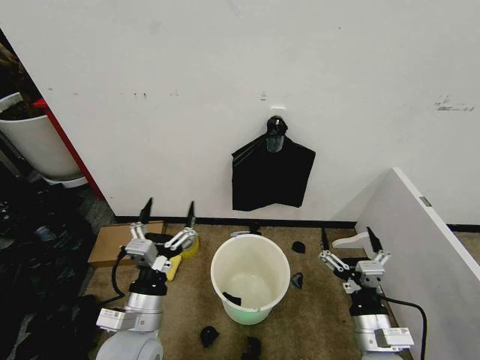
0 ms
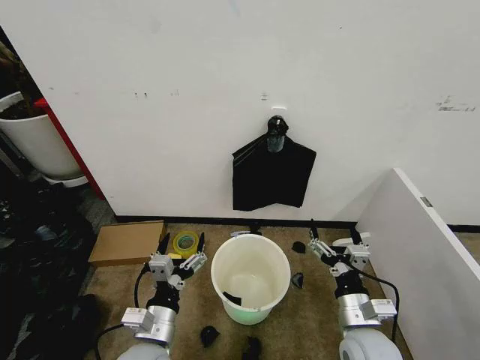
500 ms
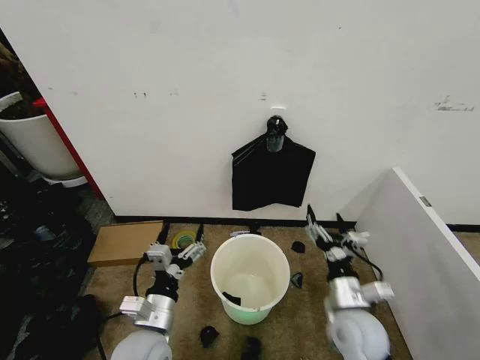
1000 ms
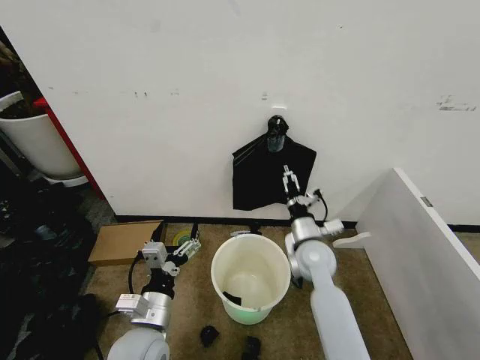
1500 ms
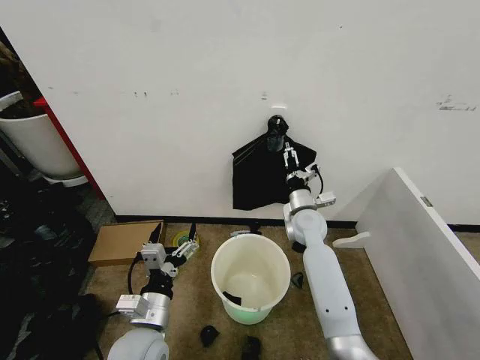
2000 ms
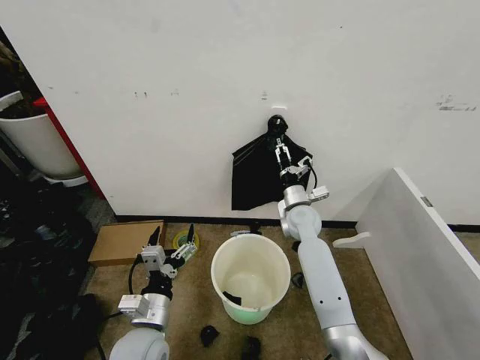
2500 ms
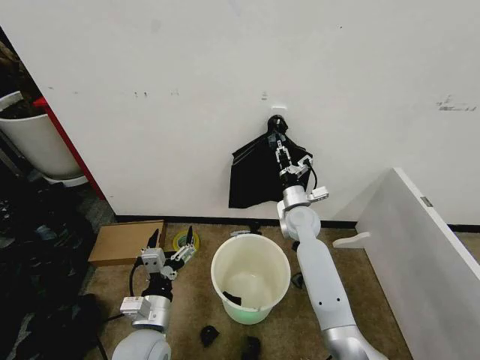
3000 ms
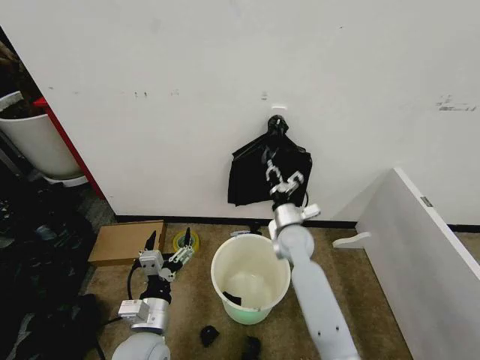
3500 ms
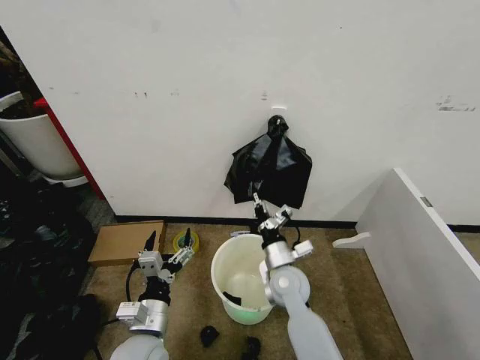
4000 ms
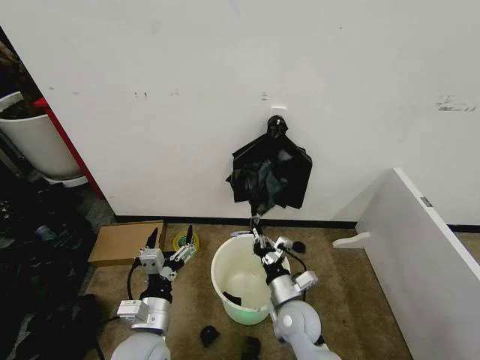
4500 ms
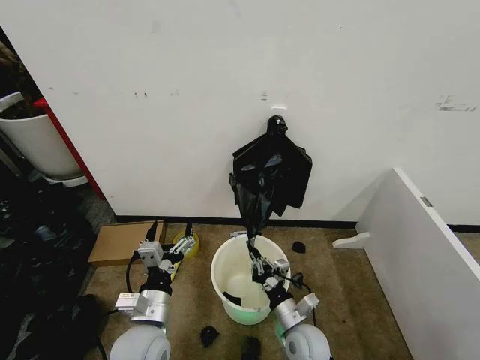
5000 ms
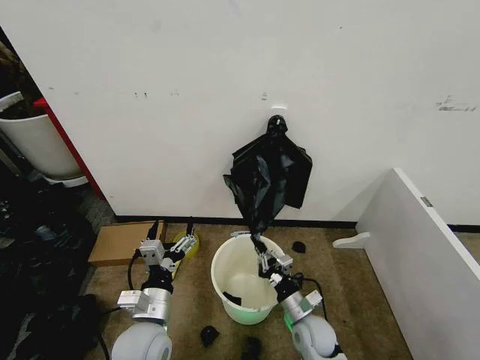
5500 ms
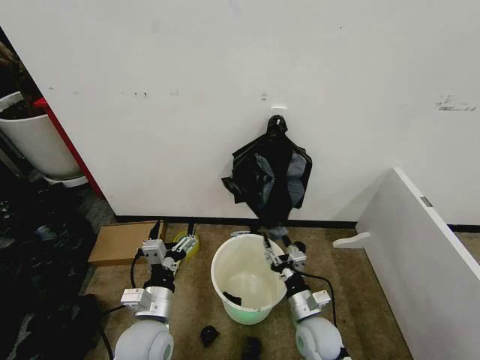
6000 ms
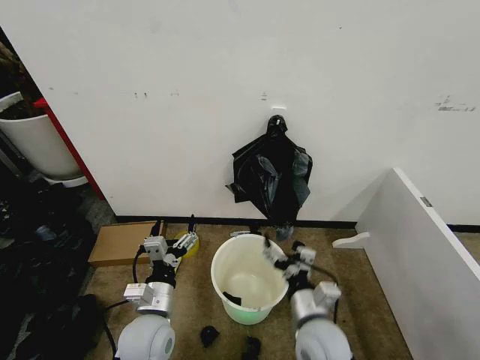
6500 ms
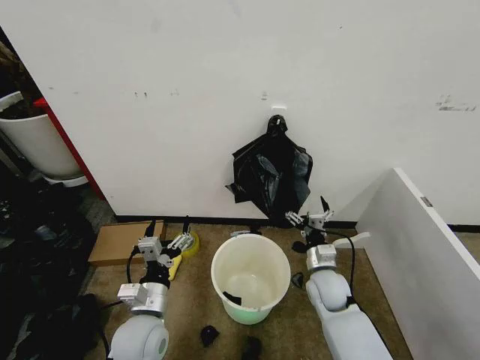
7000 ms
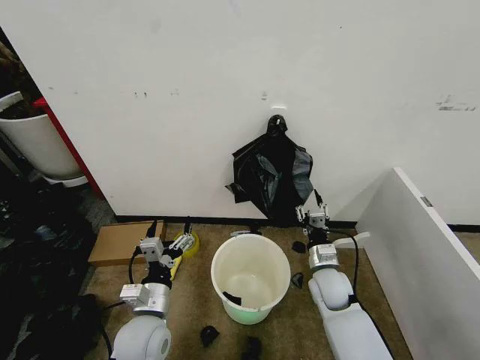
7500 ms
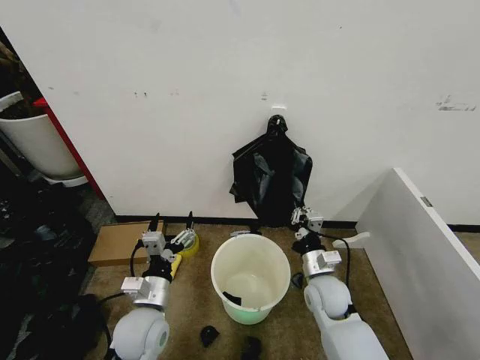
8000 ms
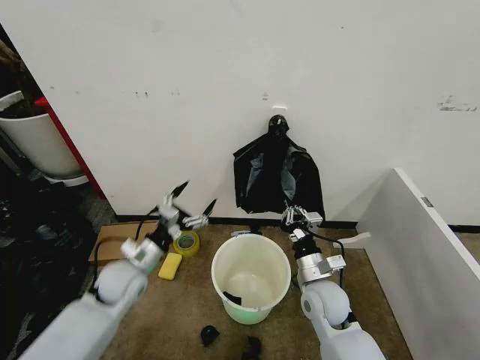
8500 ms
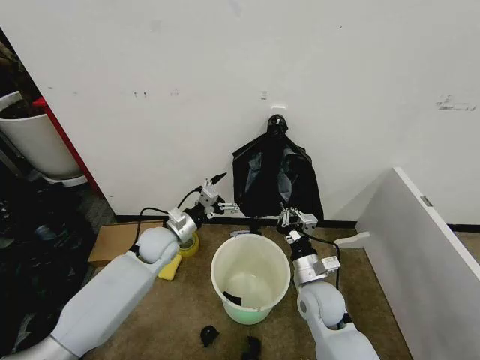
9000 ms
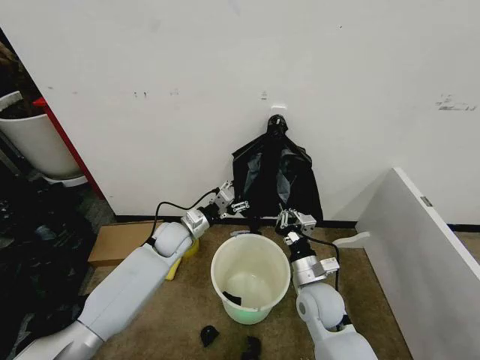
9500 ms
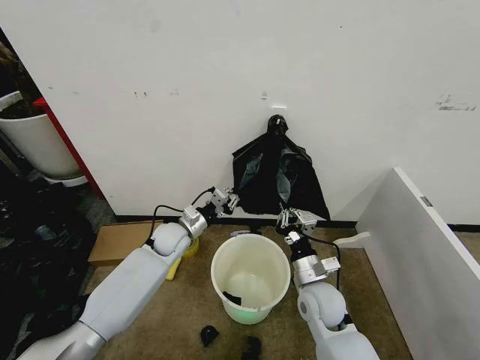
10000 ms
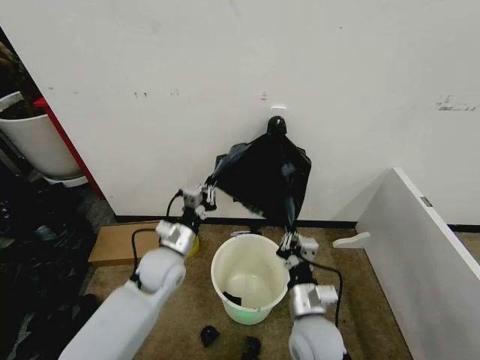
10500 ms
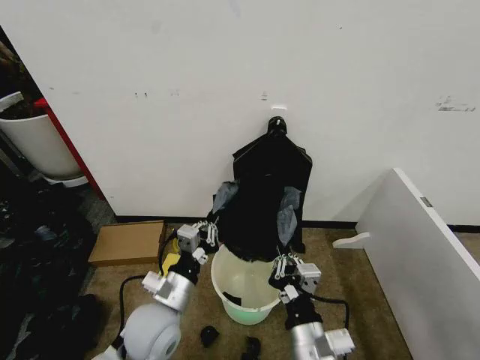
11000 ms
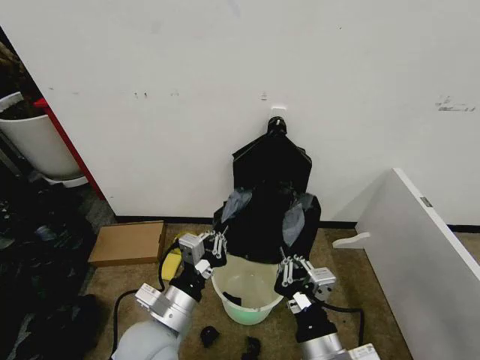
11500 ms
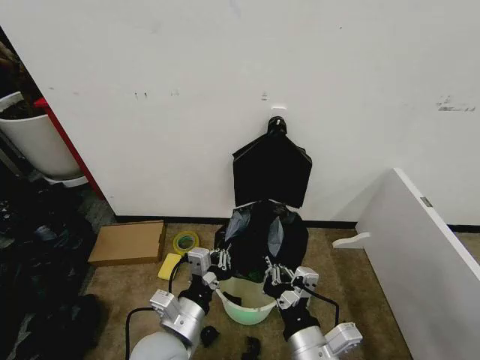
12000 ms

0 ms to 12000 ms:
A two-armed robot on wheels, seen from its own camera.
Task of the whole recording: Place the garbage bag over the trash bin.
2000 ms to 4000 ms: The right gripper goes approximately 15 cm backward, to the left and downward, and closes up.
4000 ms to 6000 ms: The right gripper is displaced backward, downward and to the right by about 15 cm, and opens.
6000 ms to 8000 ms: The right gripper goes roughly 10 cm forward and upward, and closes.
8000 ms to 10000 ms: The left gripper travels forward by approximately 25 cm, and closes up.
10000 ms to 12000 ms: The left gripper shifts approximately 30 cm backward. Meanwhile the right gripper heads backward and upward, covering some 20 cm.

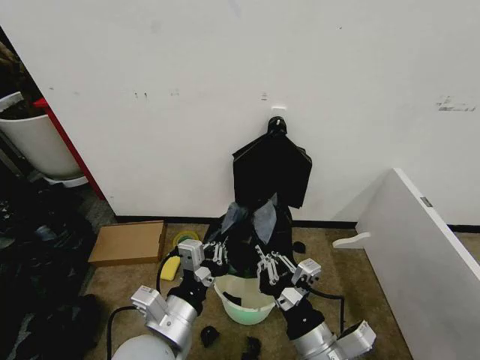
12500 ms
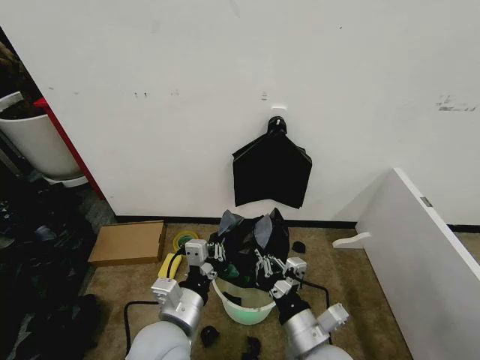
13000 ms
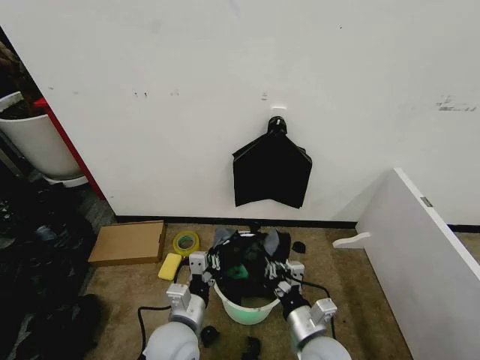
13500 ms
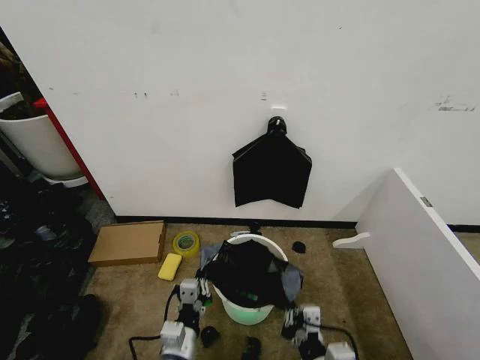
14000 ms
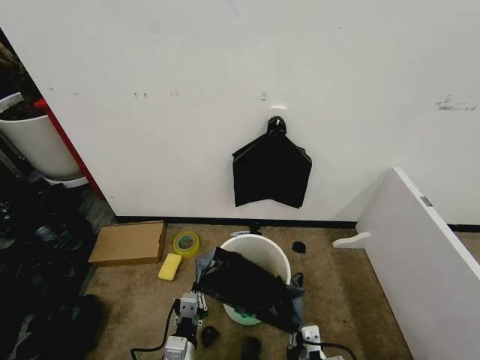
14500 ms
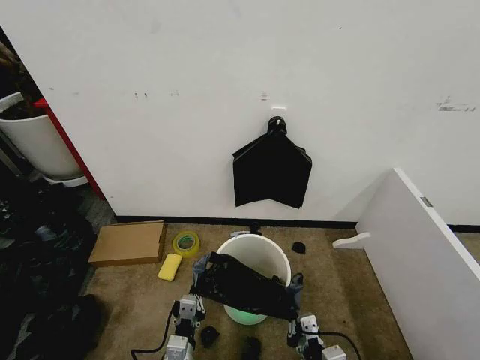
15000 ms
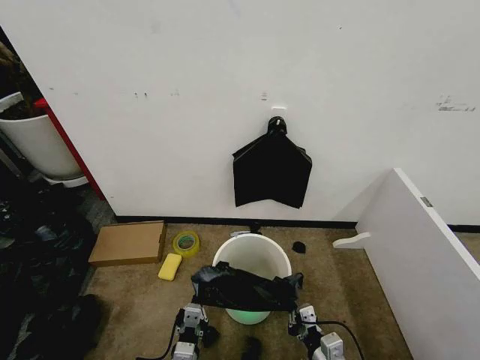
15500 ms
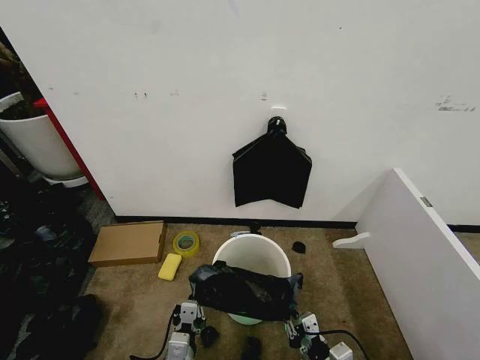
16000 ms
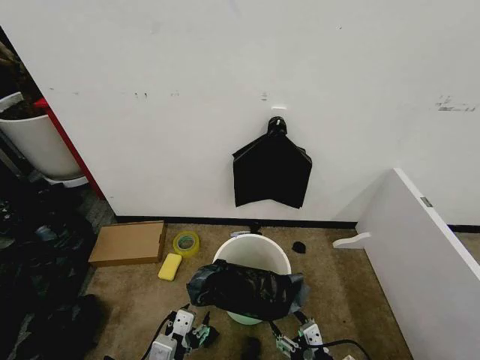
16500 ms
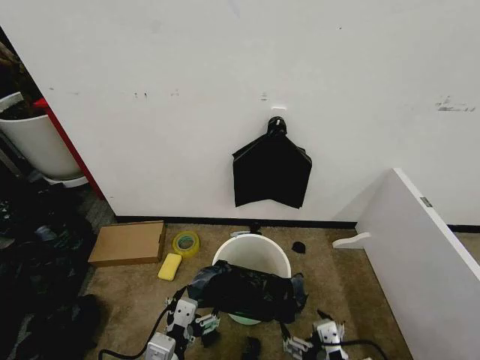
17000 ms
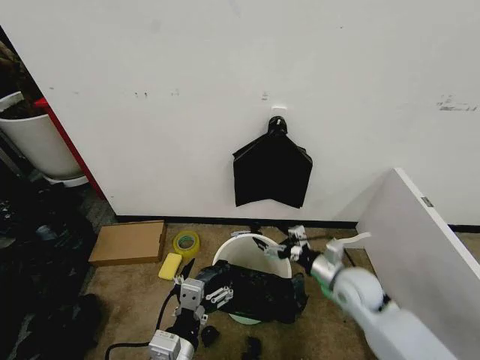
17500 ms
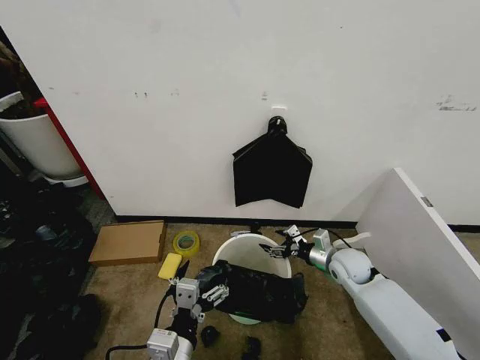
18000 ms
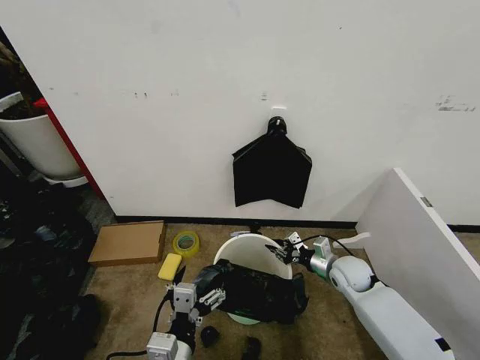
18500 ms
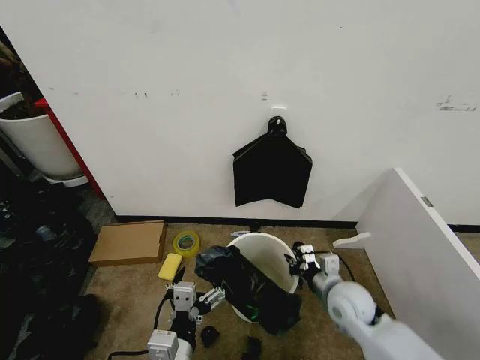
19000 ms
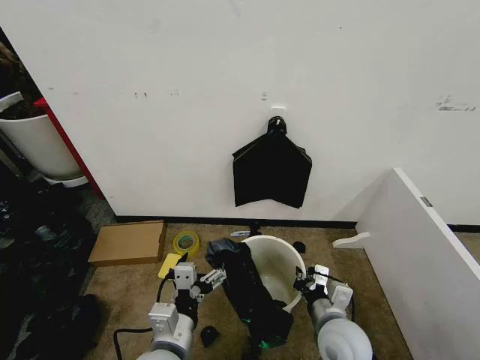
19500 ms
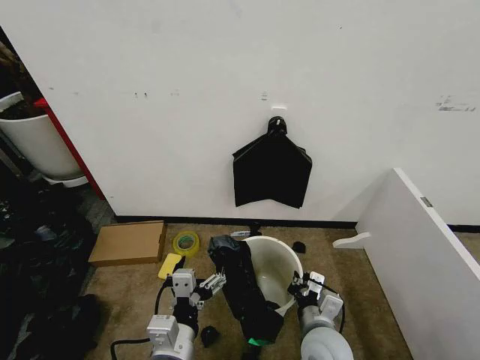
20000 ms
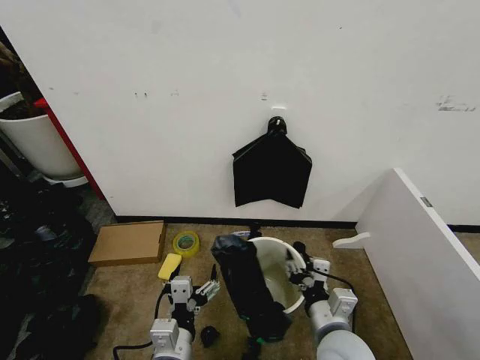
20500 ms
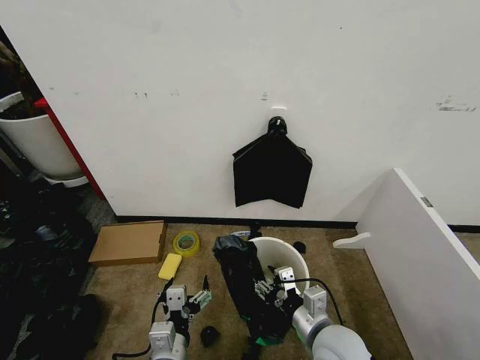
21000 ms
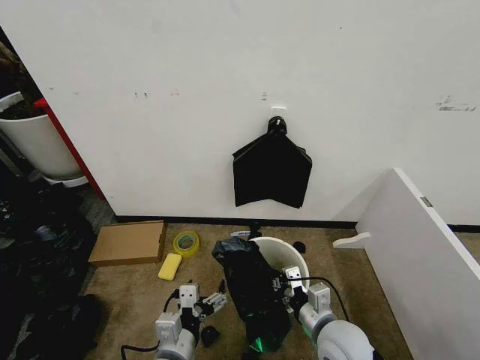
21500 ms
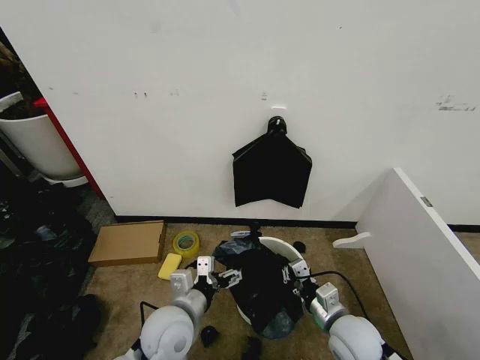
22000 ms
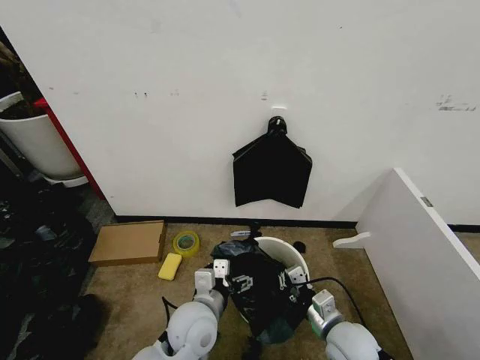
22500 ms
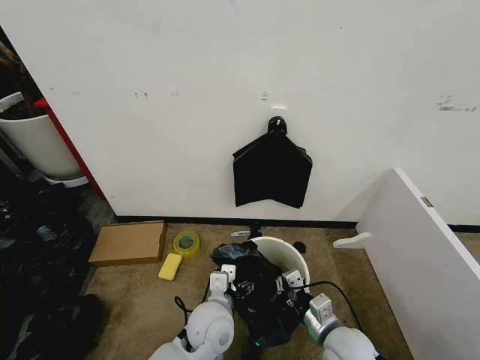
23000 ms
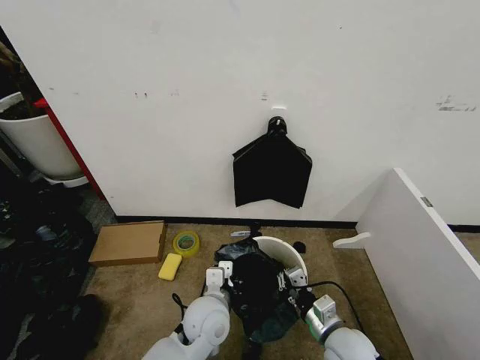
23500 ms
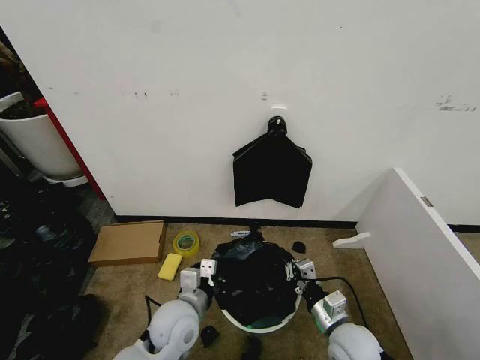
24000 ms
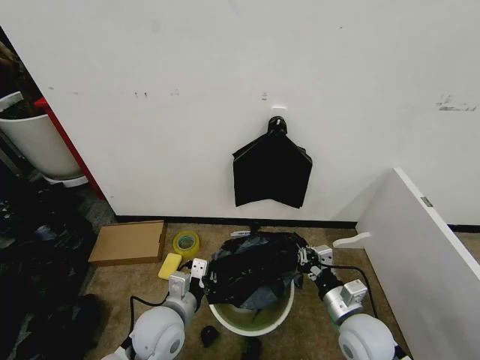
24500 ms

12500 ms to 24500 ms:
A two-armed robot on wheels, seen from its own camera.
Task of the whole recording: Place the garbage bag over the trash bin.
12500 ms to 14500 ms: The right gripper is displaced downward and backward by some 10 cm. Meanwhile the left gripper is displaced downward by some 20 cm.
14500 ms to 16500 ms: The right gripper heads to the right, covering approximately 5 cm, and opens. The left gripper heads upward, covering about 10 cm, and opens.
16500 ms to 18500 ms: The right gripper moves forward, roughly 30 cm, and closes its fingers. Meanwhile the left gripper is displaced upward by roughly 5 cm, and opens up.
18500 ms to 20500 ms: The right gripper is displaced backward, to the left and upward by roughly 25 cm.
20500 ms to 22500 ms: The left gripper is displaced forward by some 10 cm. Meanwhile the right gripper goes some 5 cm downward, and closes up.
22500 ms to 24500 ms: The left gripper moves to the left, about 5 cm, and closes its fingers.

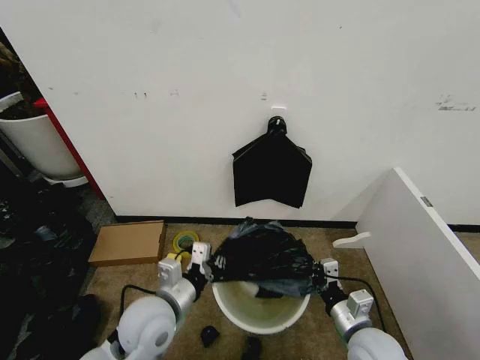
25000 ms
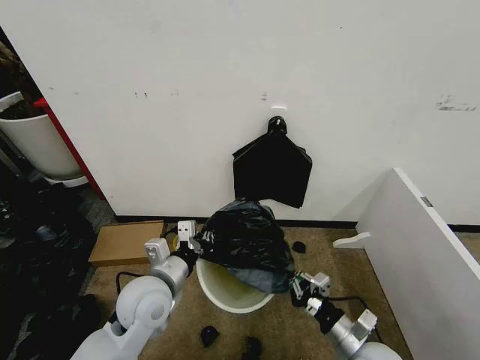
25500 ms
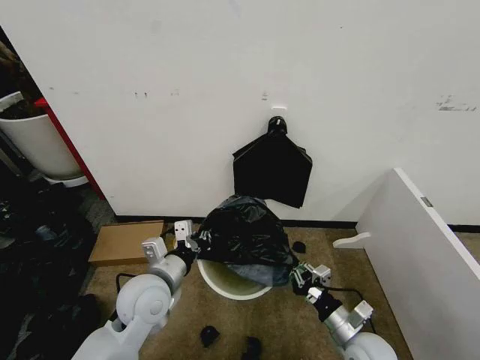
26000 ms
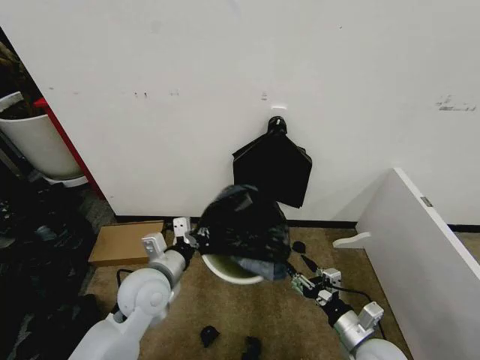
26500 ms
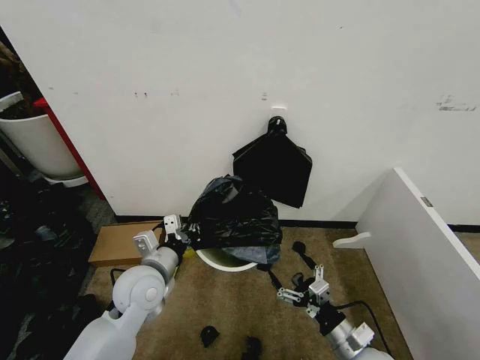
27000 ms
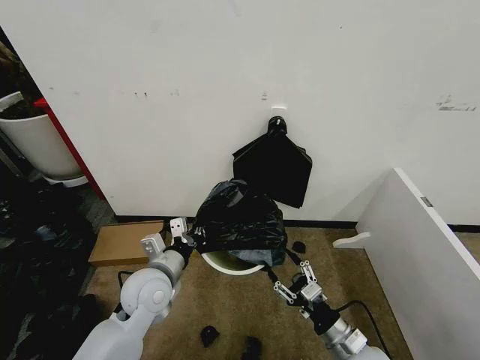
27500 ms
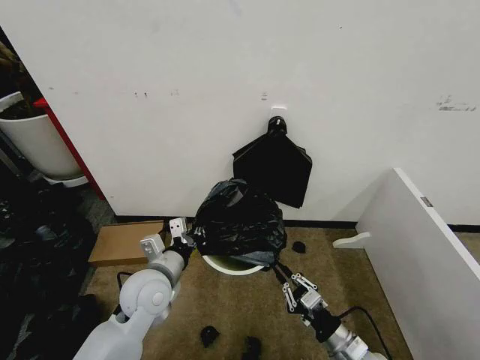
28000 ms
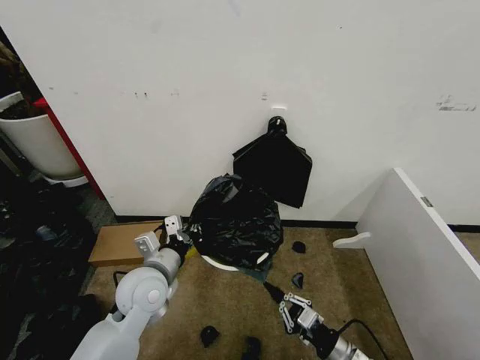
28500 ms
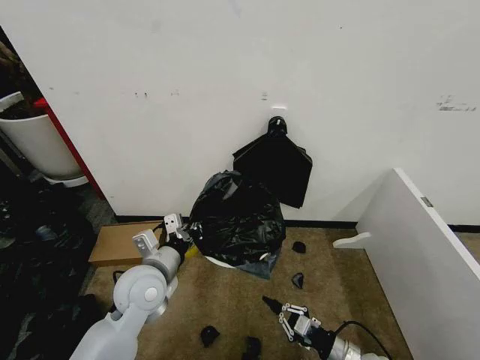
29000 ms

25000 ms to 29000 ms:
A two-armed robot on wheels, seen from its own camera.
Task of the whole recording: Place the garbage bag over the trash bin.
25000 ms to 27000 ms: The left gripper travels forward by roughly 5 cm. The right gripper opens its fingers.
27000 ms to 29000 ms: The right gripper goes roughly 5 cm downward, and closes.
